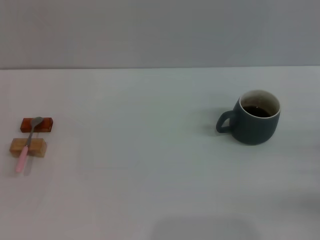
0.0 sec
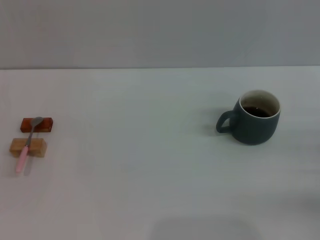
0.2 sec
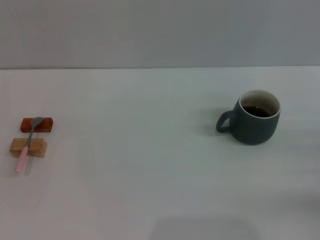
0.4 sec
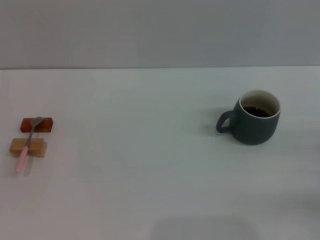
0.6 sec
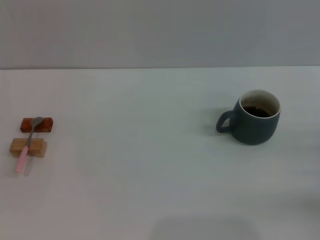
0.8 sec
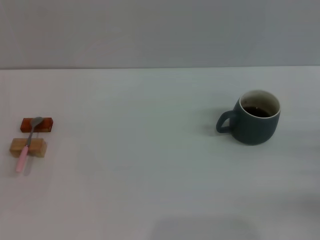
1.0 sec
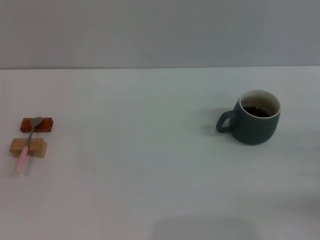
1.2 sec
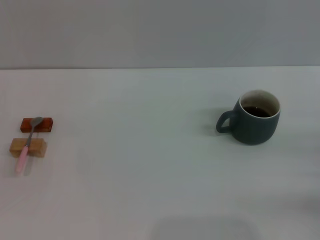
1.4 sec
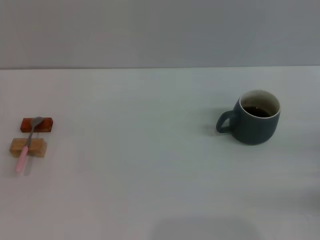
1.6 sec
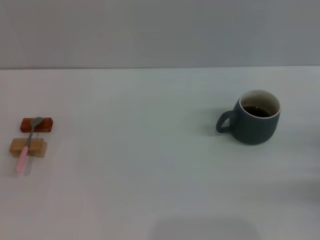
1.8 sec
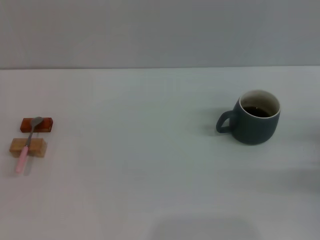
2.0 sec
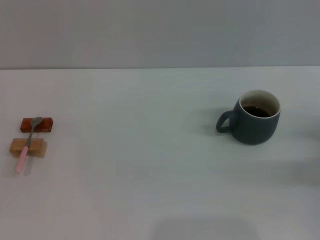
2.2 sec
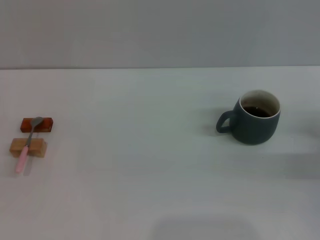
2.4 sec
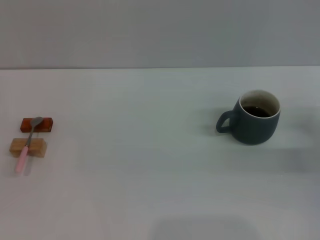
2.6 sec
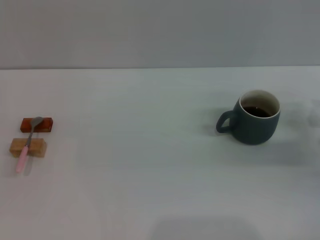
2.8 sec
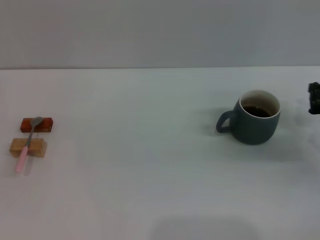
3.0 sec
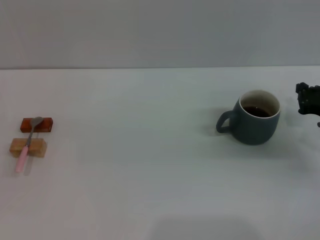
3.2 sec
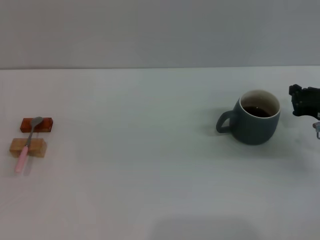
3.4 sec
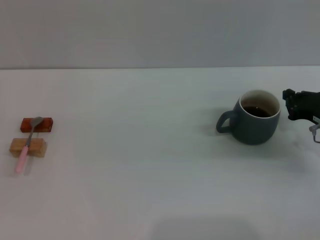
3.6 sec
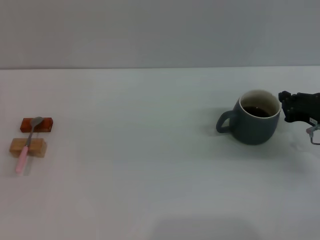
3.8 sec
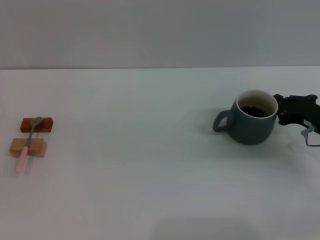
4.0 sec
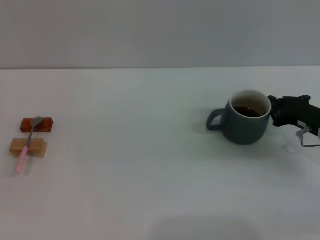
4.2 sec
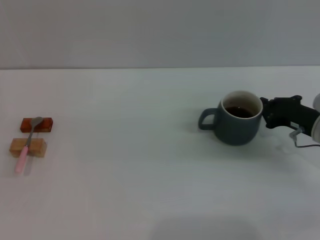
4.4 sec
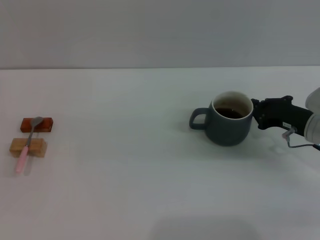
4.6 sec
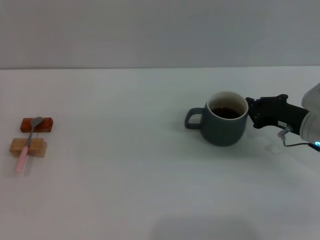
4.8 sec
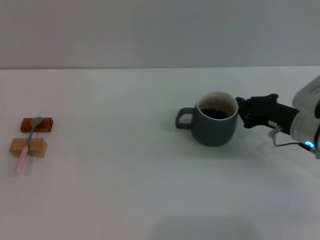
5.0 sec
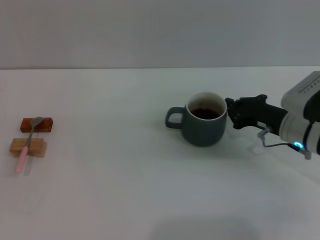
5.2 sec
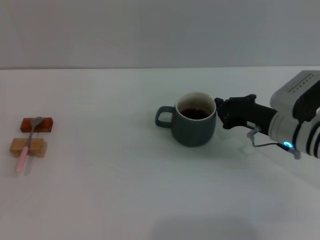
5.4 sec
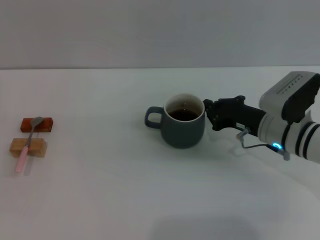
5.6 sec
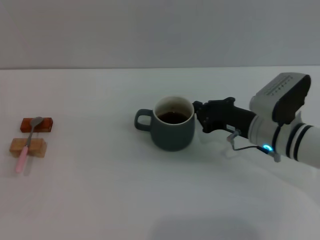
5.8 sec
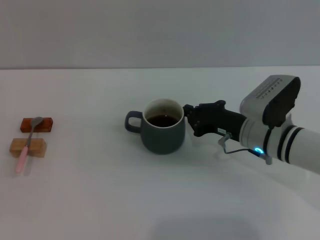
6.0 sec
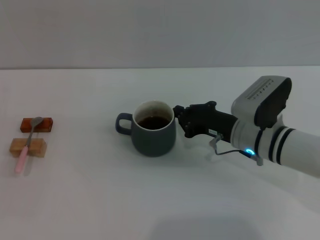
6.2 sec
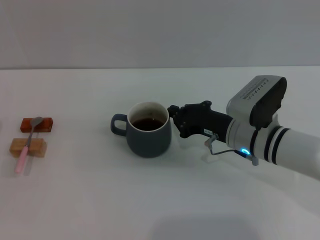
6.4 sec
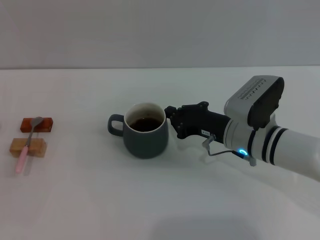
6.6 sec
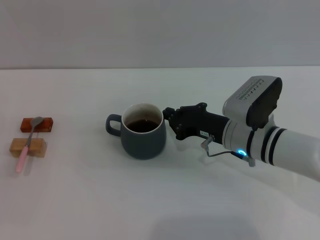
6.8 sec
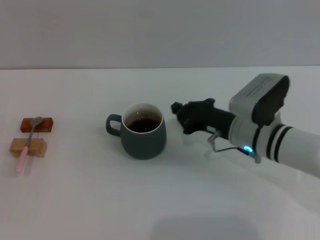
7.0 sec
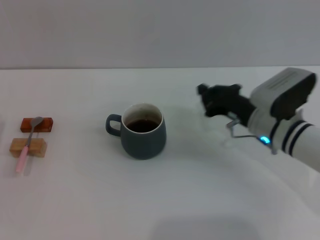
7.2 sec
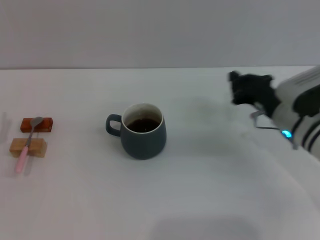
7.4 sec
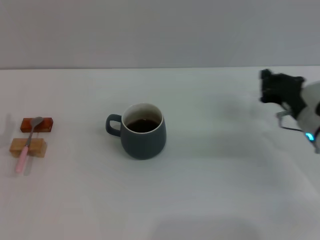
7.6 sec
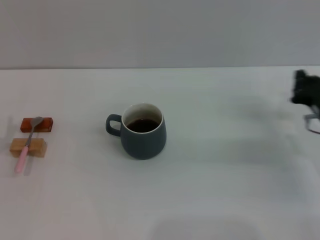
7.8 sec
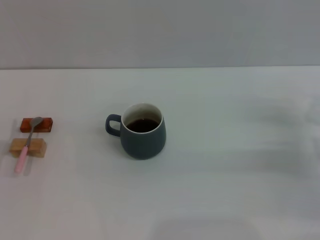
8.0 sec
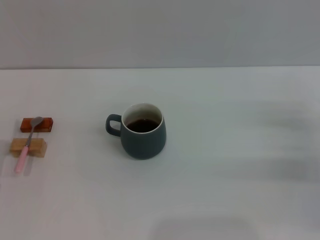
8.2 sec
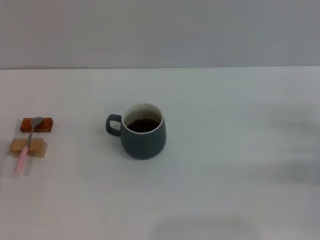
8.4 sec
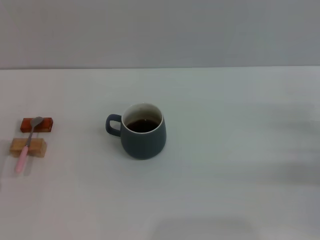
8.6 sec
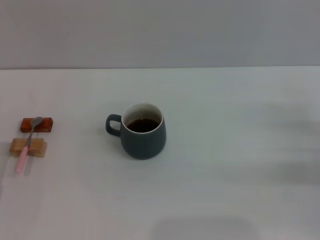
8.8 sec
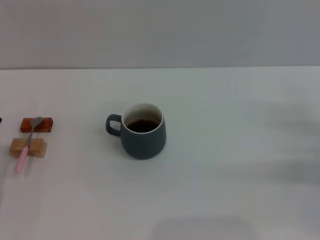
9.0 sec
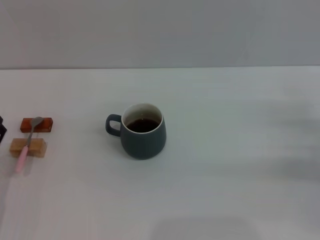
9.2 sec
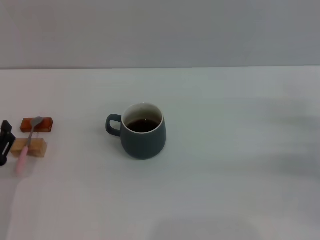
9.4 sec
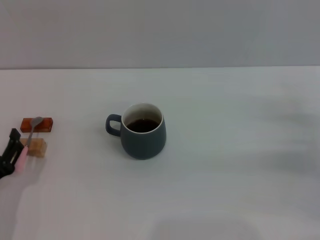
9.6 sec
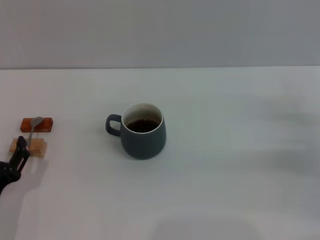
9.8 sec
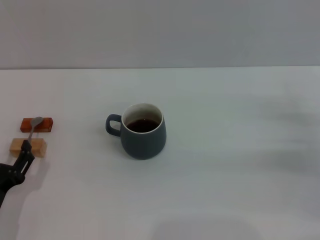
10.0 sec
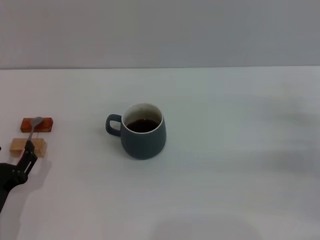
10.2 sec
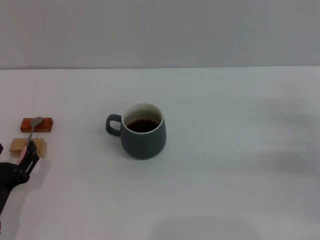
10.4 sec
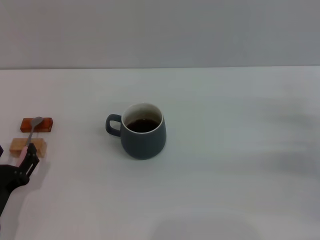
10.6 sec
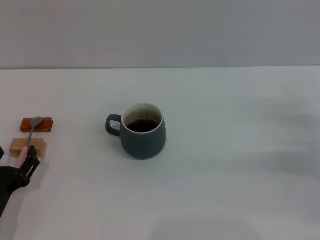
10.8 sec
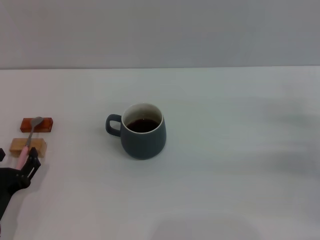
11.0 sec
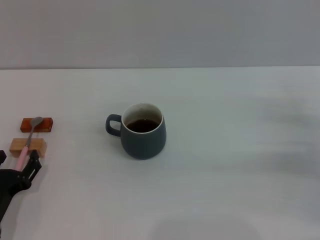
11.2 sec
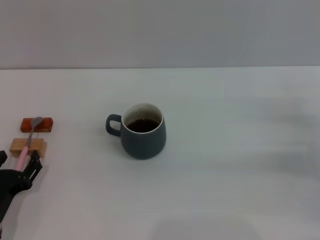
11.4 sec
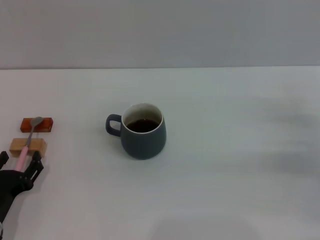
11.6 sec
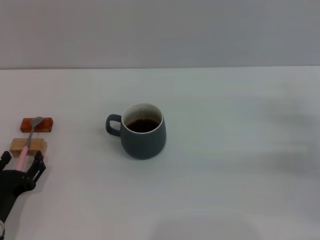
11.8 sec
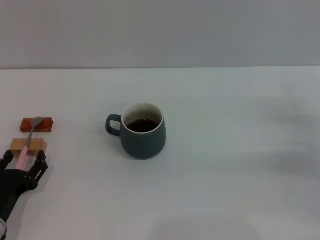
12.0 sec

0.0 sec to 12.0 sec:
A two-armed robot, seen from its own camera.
Task of the whole recording: Move the grey cup to the center, lift the pink spoon, stir it three times in the cup, and put the spoon into the cup.
Step, 0.0 sec to 7.0 sec: Move the cup with coffee to the center of view with the right gripper.
1.6 sec to 3.0 sec: The right gripper heads forward, covering about 10 cm.
3.0 sec to 4.4 sec: The right gripper shifts by some 5 cm.
4.4 sec to 6.0 sec: The right gripper goes some 10 cm to the left.
6.0 sec to 7.6 sec: The right gripper travels to the right by approximately 10 cm.
7.6 sec to 9.0 sec: The right gripper shifts about 10 cm to the right and backward, and opens up.
9.0 sec to 10.4 sec: The left gripper moves approximately 5 cm.
10.4 sec to 12.0 sec: There are only small adjustments of the grippers.

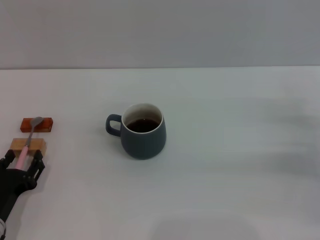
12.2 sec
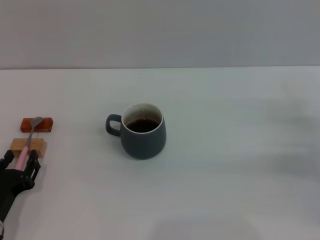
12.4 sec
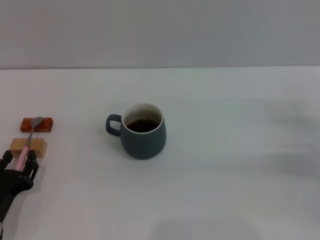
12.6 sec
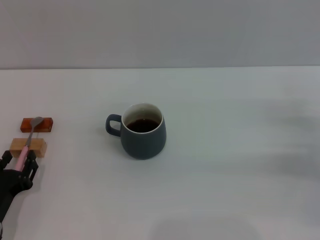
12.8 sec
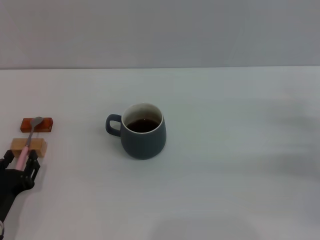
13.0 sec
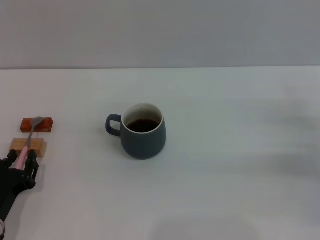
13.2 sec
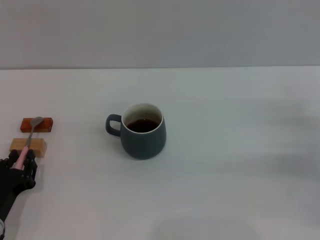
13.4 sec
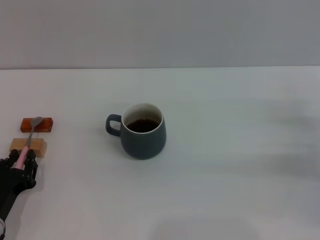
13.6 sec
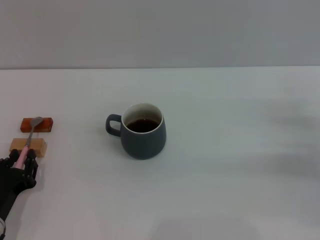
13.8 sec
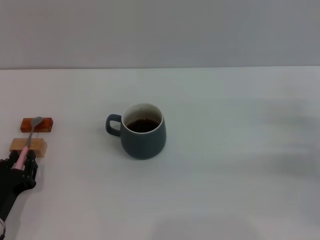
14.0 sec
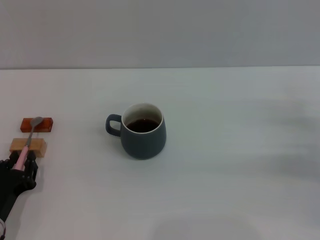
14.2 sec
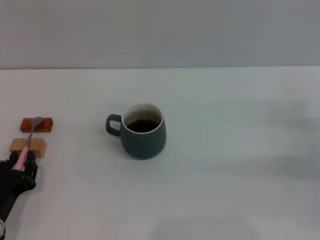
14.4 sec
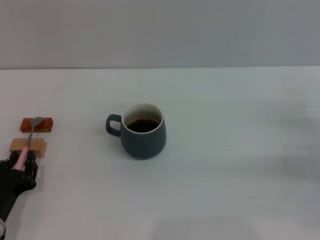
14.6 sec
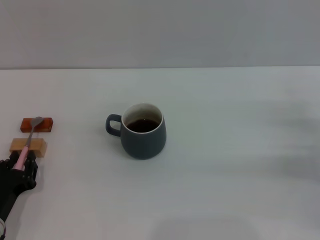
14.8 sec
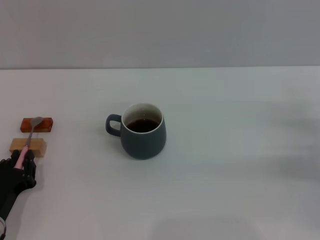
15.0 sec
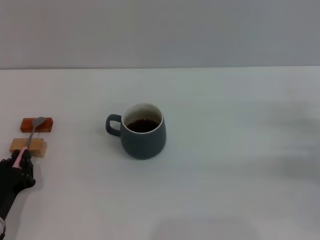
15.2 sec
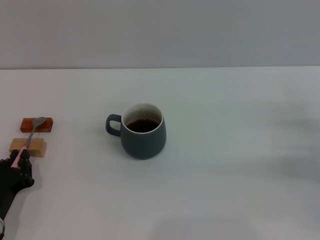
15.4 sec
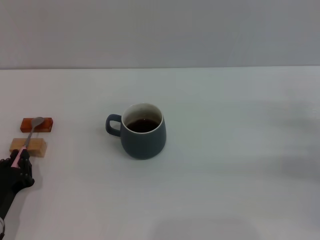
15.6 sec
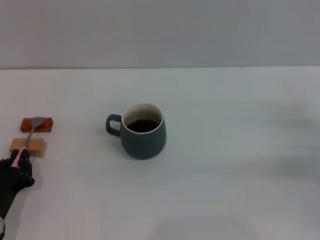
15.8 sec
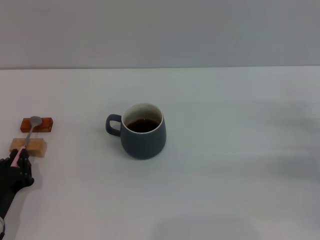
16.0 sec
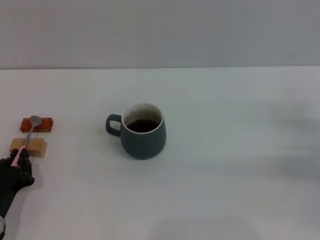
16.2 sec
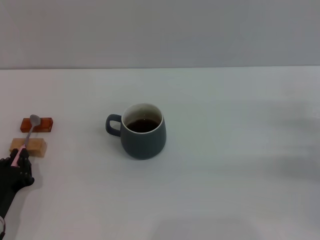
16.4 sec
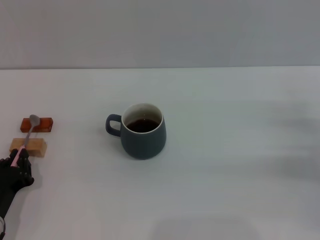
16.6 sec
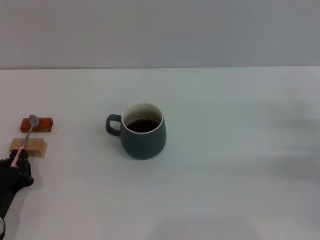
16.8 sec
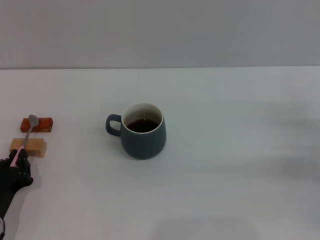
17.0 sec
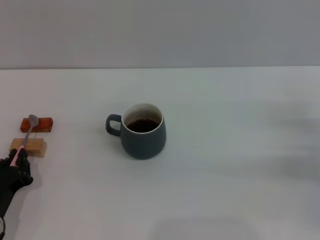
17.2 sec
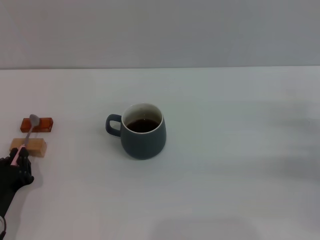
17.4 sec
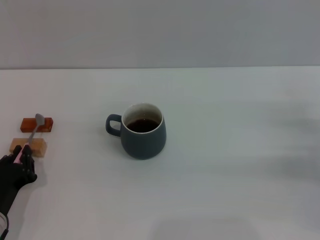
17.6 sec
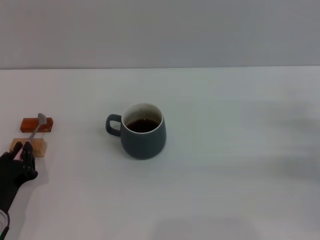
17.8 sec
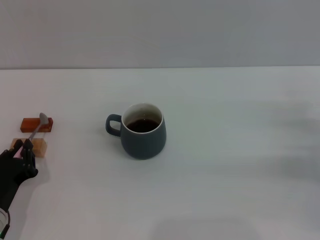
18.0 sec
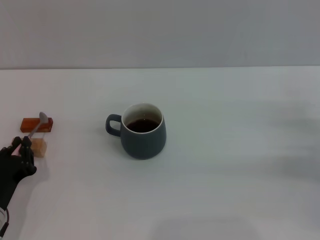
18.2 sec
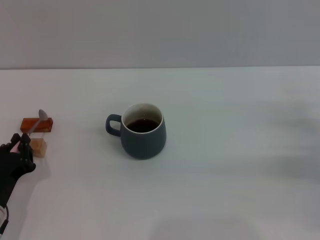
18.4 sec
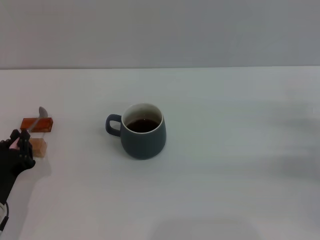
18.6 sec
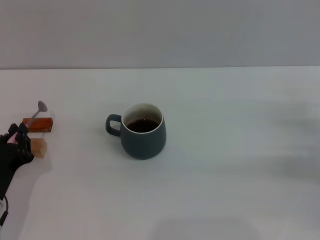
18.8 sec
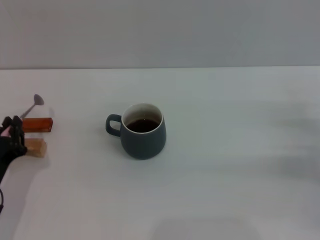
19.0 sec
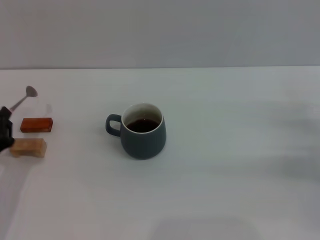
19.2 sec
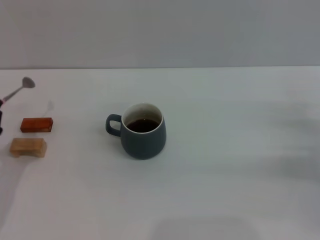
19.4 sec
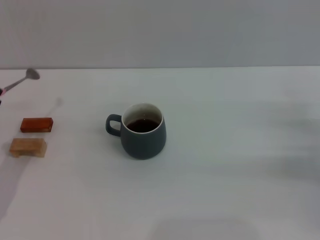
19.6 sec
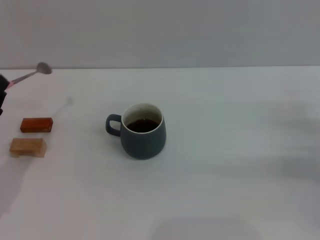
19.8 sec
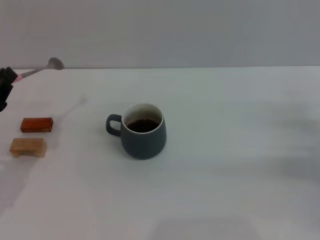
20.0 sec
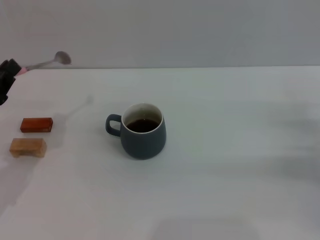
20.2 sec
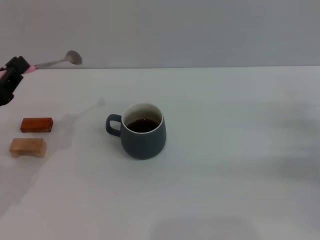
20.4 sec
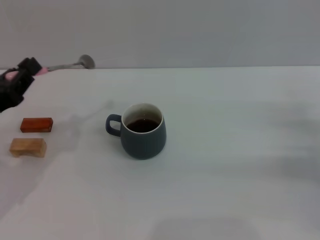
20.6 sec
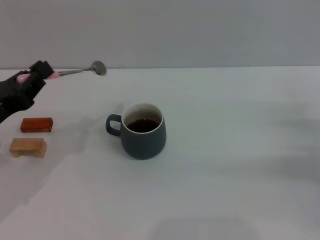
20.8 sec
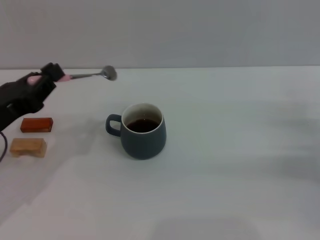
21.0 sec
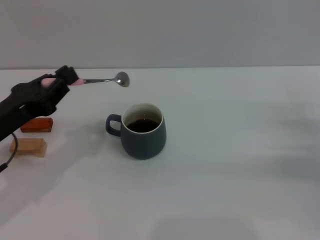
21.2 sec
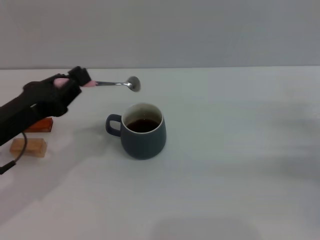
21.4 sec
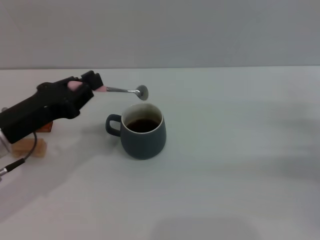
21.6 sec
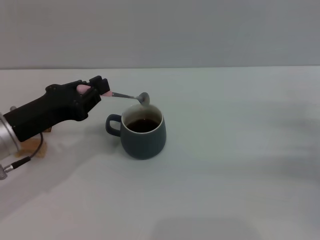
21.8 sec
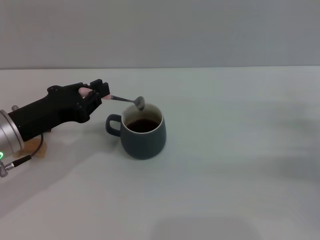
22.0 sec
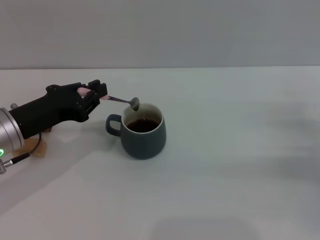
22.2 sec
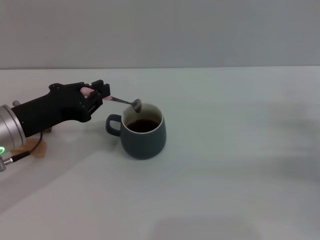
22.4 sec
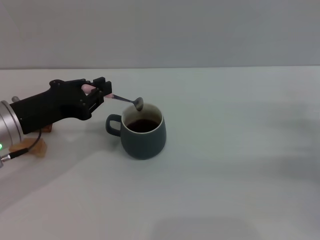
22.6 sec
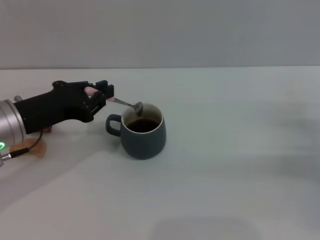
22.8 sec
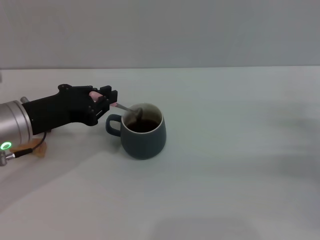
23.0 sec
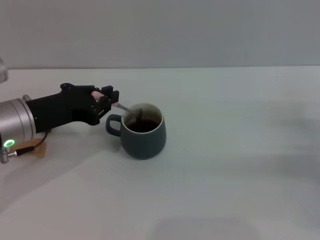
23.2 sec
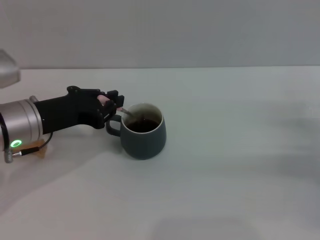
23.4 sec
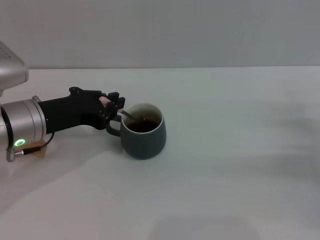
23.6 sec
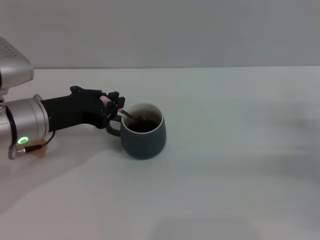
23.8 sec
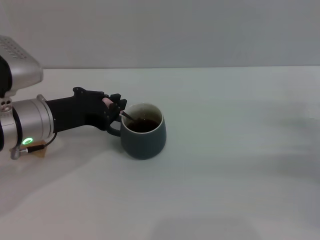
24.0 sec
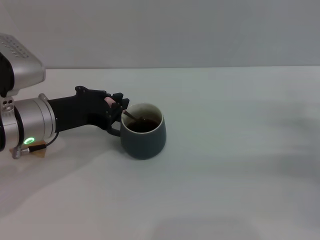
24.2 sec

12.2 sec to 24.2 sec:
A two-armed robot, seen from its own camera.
Task of the whole recording: Move the grey cup to the center, lift the pink spoon, stir it three times in the cup, and put the spoon into the cup.
Step, 12.2 sec to 19.8 sec: Pick up the spoon with the left gripper.
12.2 sec to 13.8 sec: The left gripper closes.
13.8 sec to 16.6 sec: Neither gripper changes place.
16.6 sec to 18.2 sec: The grippers make only small movements.
18.2 sec to 19.8 sec: The left gripper travels upward by roughly 10 cm.
19.8 sec to 21.2 sec: The left gripper ends up roughly 5 cm from where it was.
22.6 sec to 24.2 sec: The grippers make only small movements.
